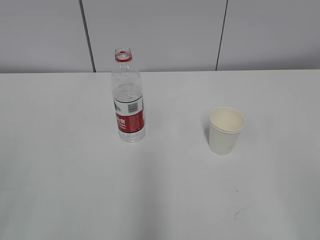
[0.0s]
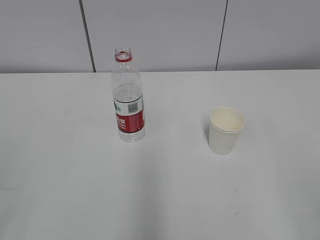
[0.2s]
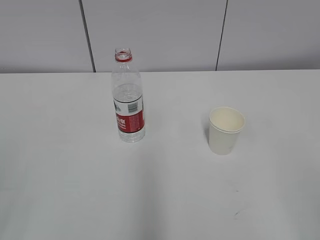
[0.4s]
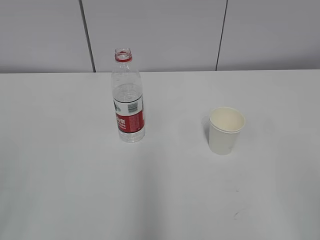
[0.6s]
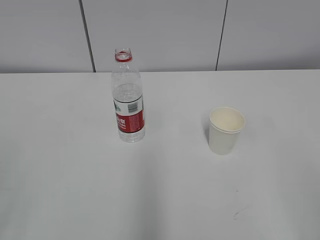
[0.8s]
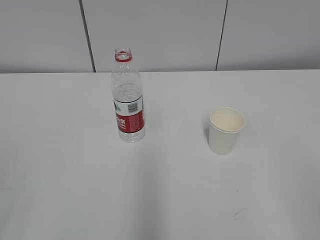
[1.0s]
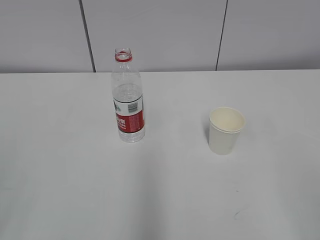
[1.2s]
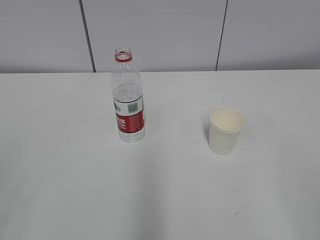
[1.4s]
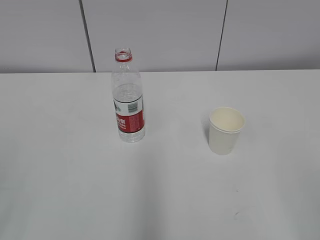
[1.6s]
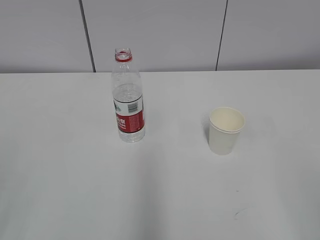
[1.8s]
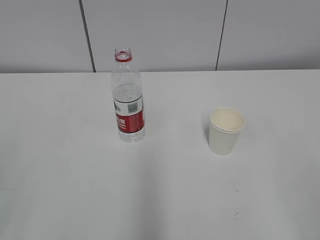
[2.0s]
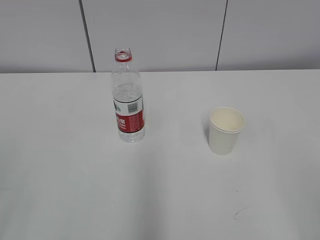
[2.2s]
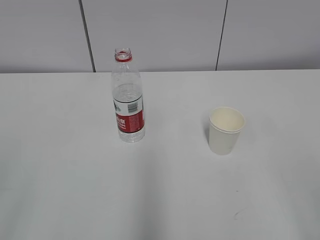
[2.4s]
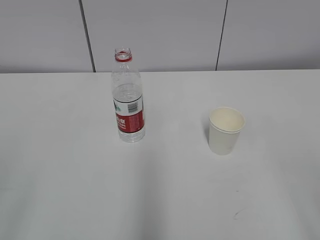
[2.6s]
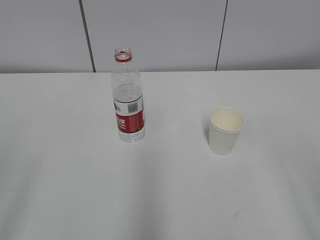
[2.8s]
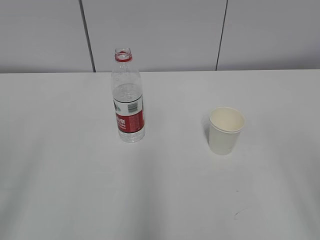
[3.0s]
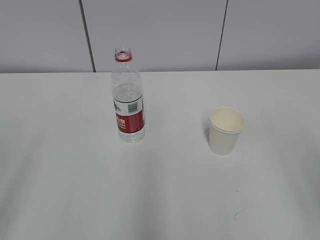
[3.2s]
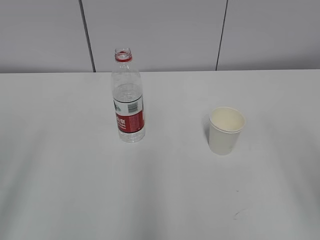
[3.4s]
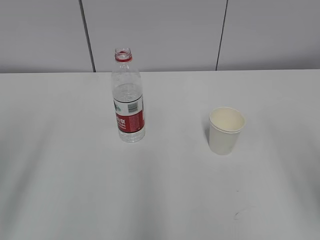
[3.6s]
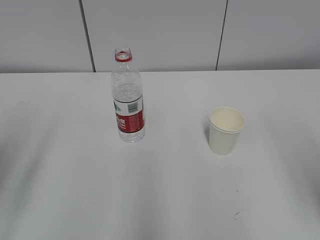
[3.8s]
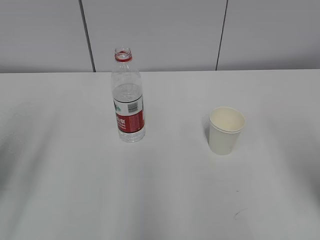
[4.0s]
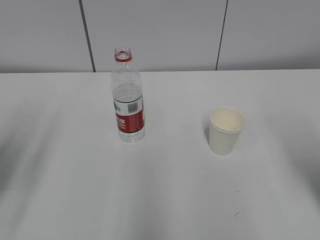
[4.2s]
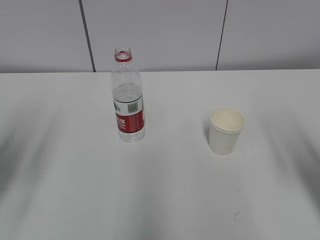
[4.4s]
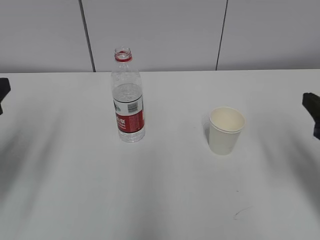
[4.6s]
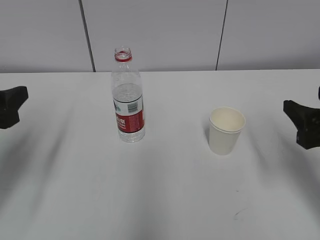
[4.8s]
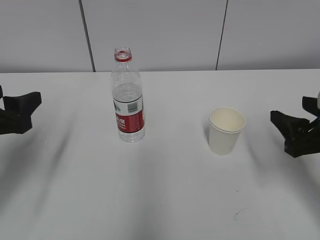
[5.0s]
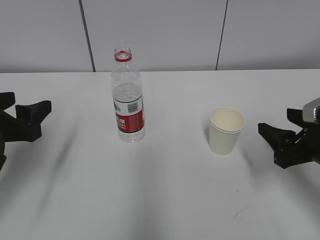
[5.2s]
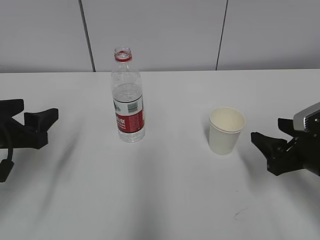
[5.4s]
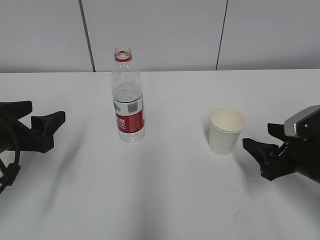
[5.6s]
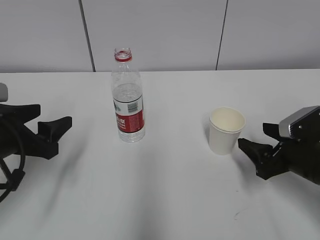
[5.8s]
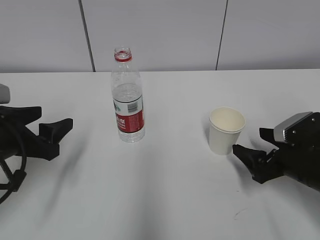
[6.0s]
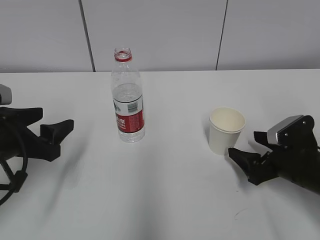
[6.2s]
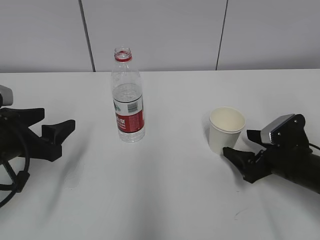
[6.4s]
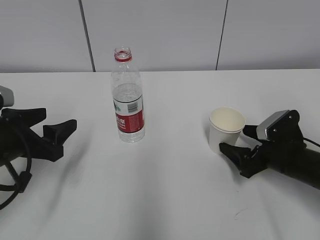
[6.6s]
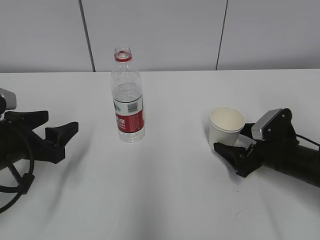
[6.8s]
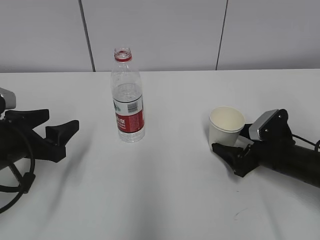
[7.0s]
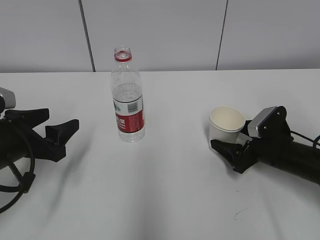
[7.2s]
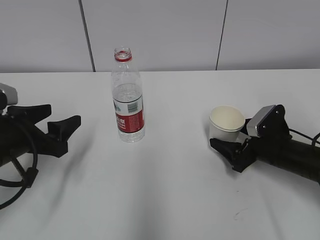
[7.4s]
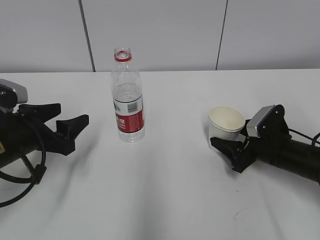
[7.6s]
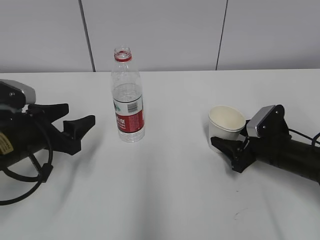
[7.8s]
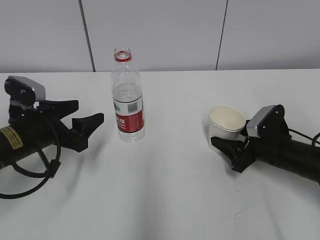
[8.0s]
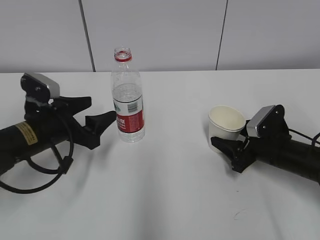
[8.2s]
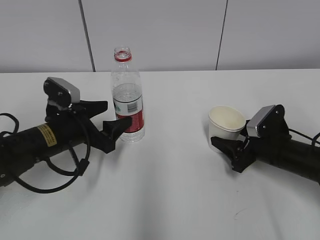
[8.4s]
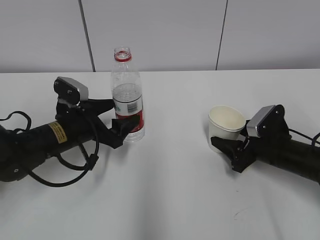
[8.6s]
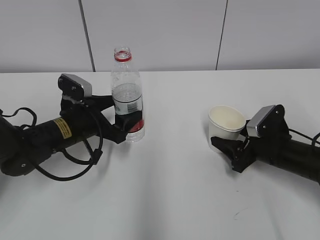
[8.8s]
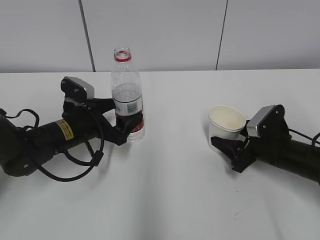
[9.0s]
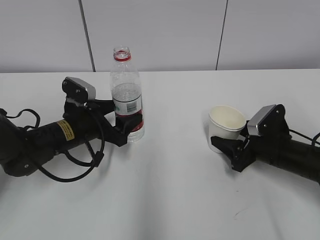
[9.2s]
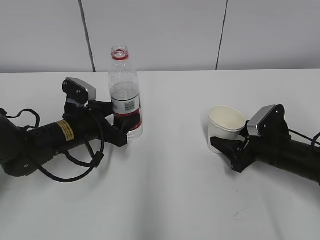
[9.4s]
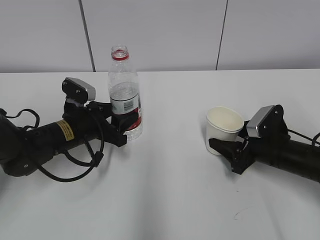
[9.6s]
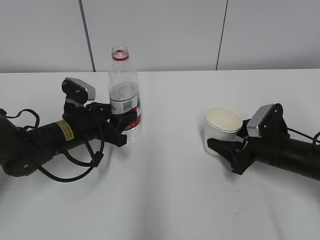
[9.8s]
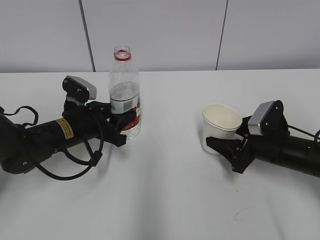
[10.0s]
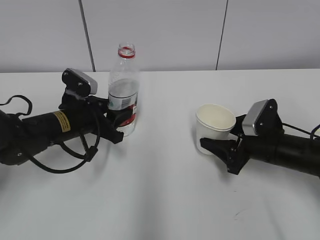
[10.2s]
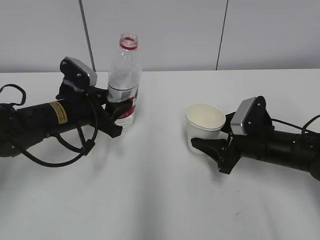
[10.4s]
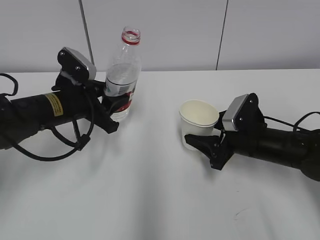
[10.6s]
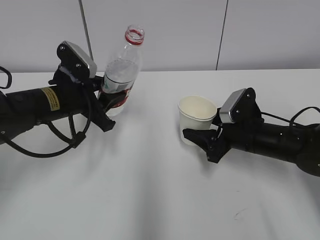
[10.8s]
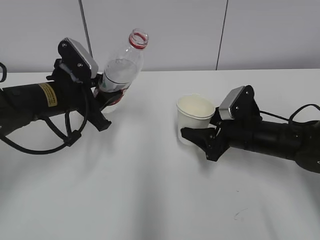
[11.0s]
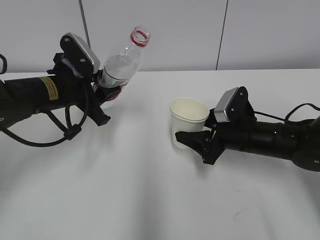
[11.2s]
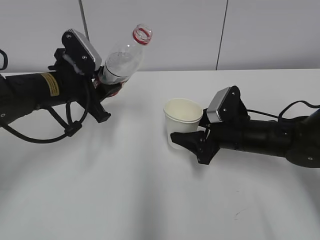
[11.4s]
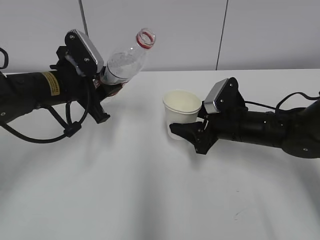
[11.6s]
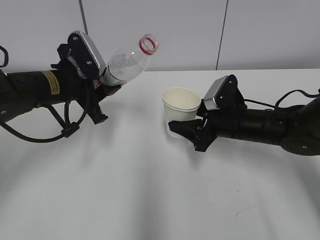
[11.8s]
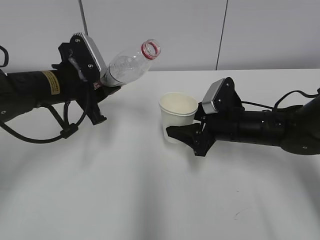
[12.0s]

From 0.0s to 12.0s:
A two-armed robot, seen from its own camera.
Step, from 0.0s to 7.8s: Grab the paper cup with the right hand.
Step, from 8.0s to 8.2s: Grab the water bottle with the left hand.
From 3.0s to 4.4s: The right gripper travels forward and downward by roughly 15 cm. The left gripper moves forward, roughly 20 cm.
From 4.4s to 6.0s: The right gripper is displaced downward and forward by about 20 cm, and opens, while the left gripper heads downward and forward, covering about 10 cm.
From 6.0s to 7.6s: The right gripper is displaced forward by about 5 cm, and closes up.
From 7.6s to 9.0s: The left gripper goes about 10 cm forward and to the right.
From 9.0s to 10.4s: The left gripper closes.
From 10.4s to 12.0s: The left gripper heads upward, covering about 5 cm; the right gripper changes place by approximately 5 cm.

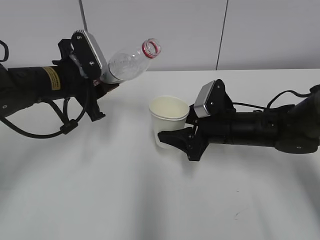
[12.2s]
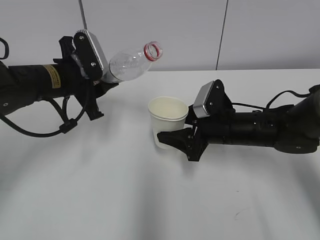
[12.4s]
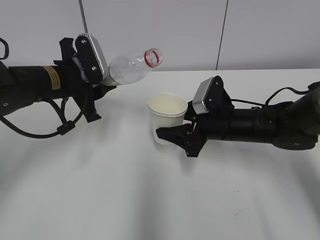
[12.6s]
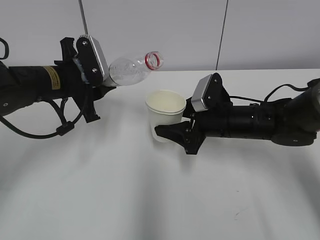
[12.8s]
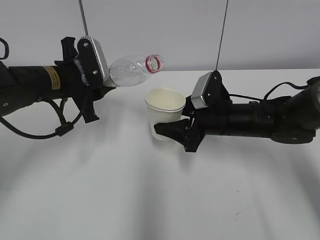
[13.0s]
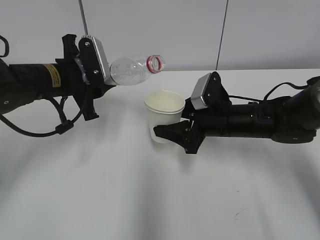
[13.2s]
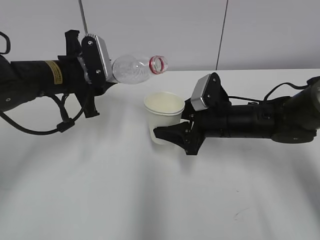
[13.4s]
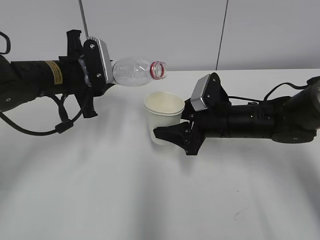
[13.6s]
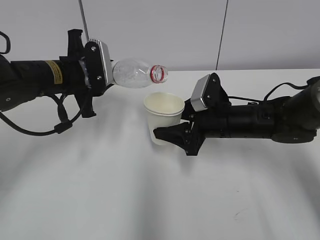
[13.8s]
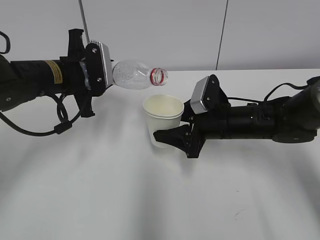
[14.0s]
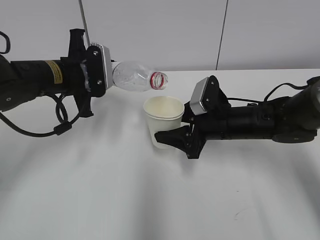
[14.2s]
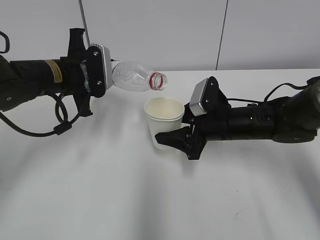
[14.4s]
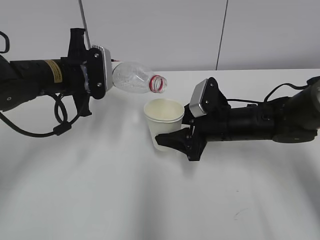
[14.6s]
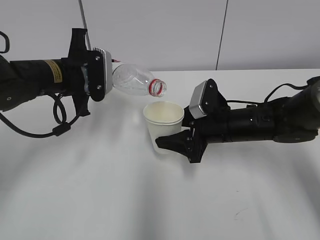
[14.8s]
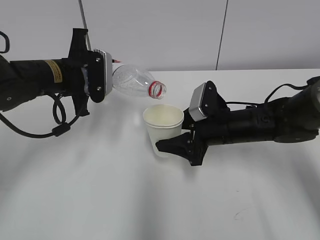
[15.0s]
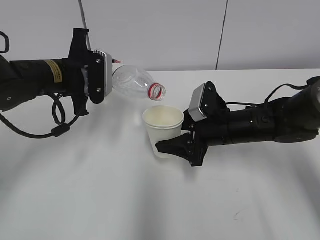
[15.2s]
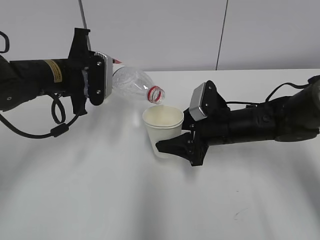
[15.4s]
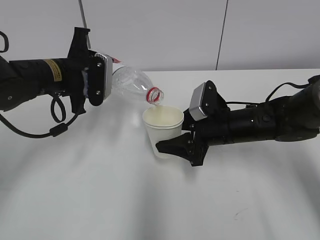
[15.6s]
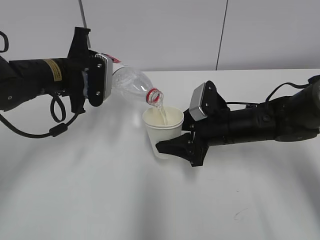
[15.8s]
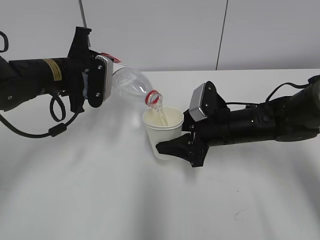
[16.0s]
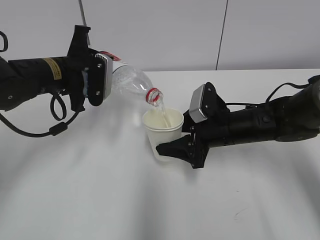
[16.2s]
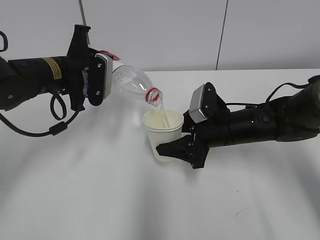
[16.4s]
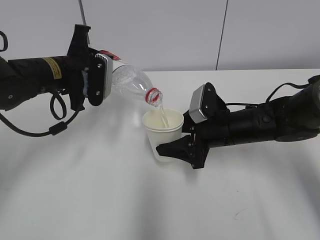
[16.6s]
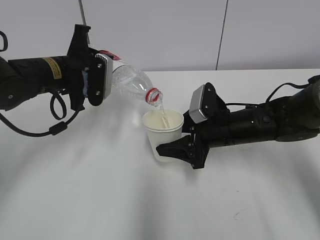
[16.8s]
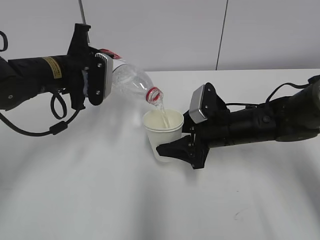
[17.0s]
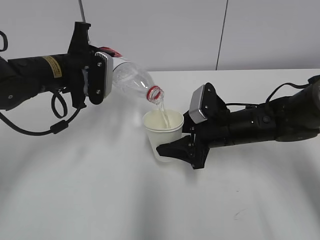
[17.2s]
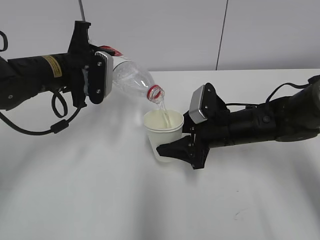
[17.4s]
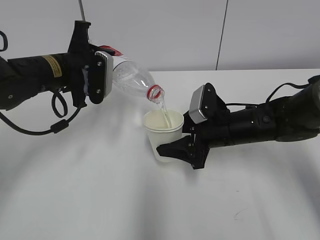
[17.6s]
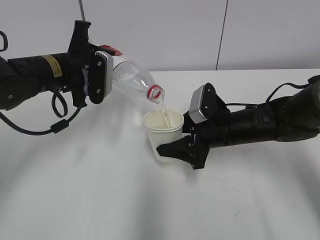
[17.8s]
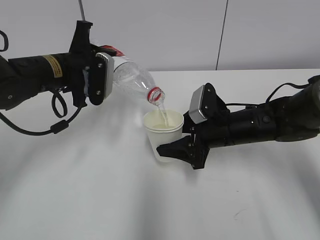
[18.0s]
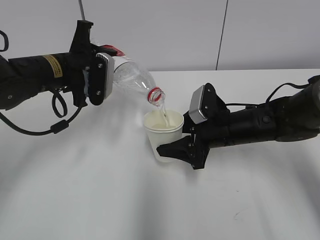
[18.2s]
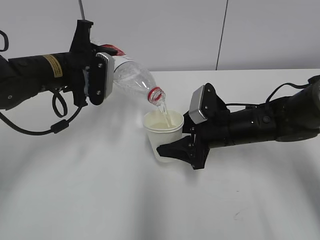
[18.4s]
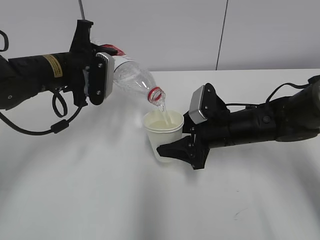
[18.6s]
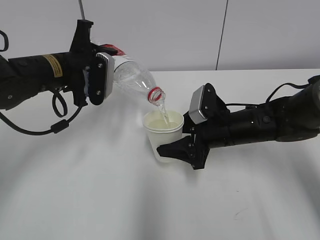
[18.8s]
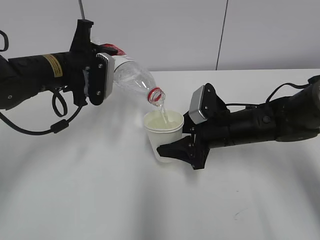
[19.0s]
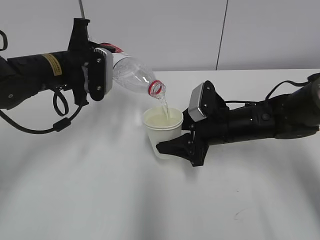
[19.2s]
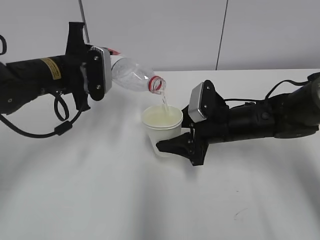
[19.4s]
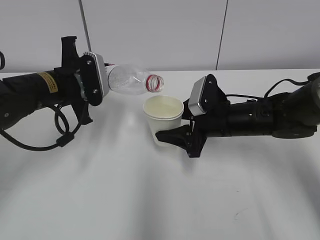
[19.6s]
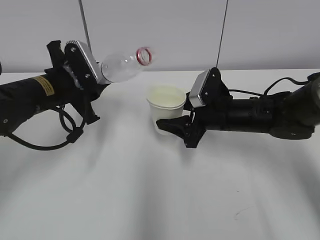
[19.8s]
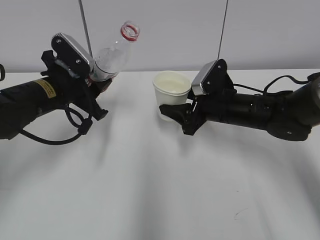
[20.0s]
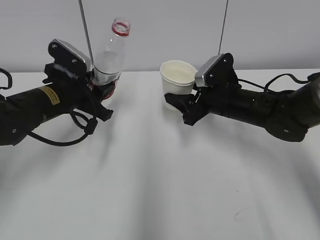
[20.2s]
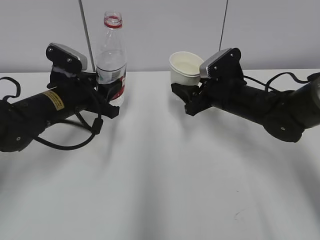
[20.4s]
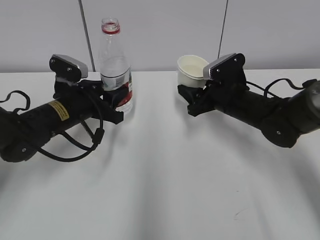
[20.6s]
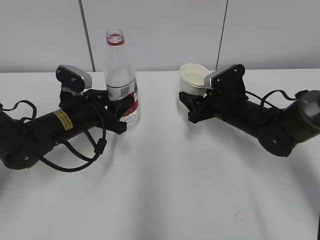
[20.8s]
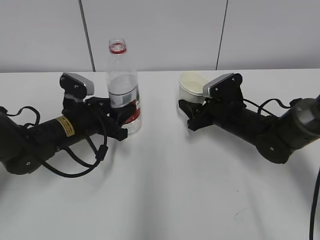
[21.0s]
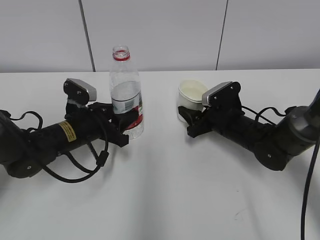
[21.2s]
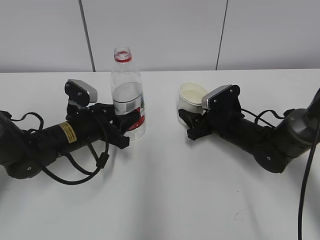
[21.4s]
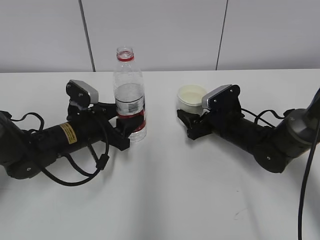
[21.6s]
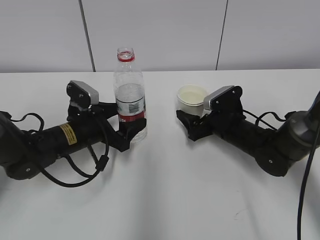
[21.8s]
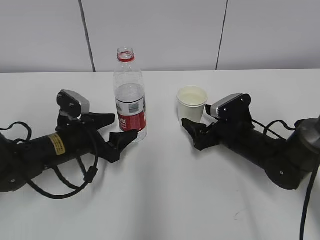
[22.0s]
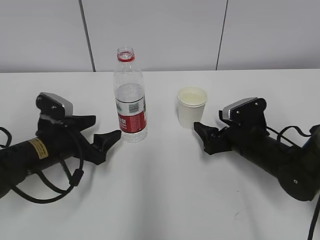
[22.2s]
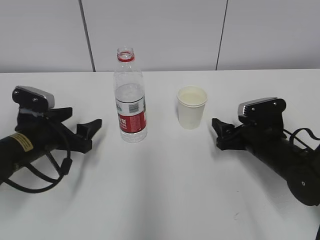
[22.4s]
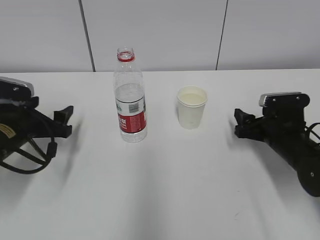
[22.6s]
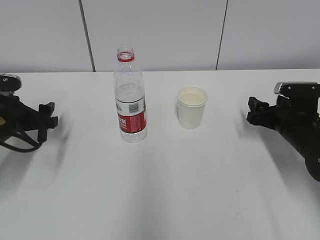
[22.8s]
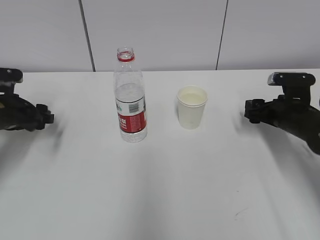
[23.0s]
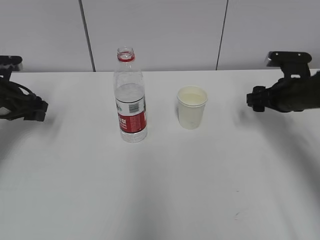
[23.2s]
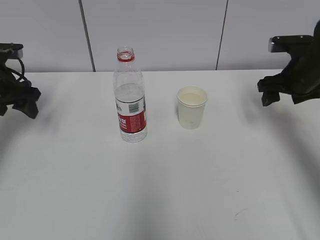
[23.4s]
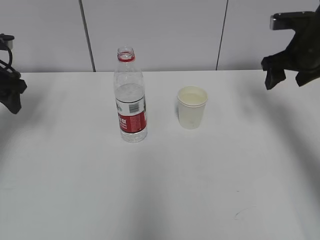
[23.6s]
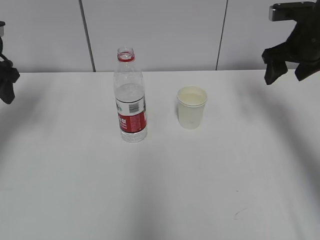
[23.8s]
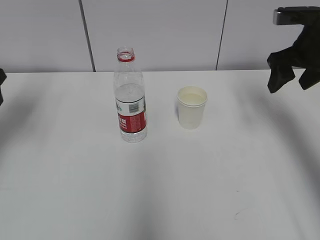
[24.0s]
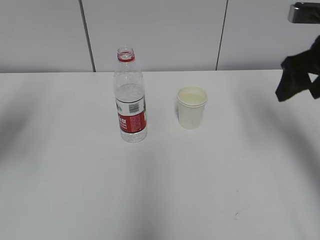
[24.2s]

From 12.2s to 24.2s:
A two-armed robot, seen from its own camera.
Step, from 13.2s to 16.2s: Fill water with the right hand.
Step, from 13.2s to 16.2s: Pour water with the left hand.
Step, from 17.2s to 18.0s: Place the water bottle with the left hand.
From 13.8s to 15.2s: The grippers move only a little.
From 15.2s to 16.6s: There are only small adjustments of the grippers.
From 16.6s to 18.2s: Neither gripper changes place.
From 19.8s to 21.2s: The left gripper heads downward, covering about 10 cm. The right gripper goes about 5 cm downward.
From 21.2s to 22.6s: The right gripper travels to the right and backward by some 10 cm, and opens its fingers, while the left gripper heads to the left, covering about 10 cm, and opens its fingers.
From 22.6s to 24.2s: The grippers both shift upward by roughly 20 cm.
